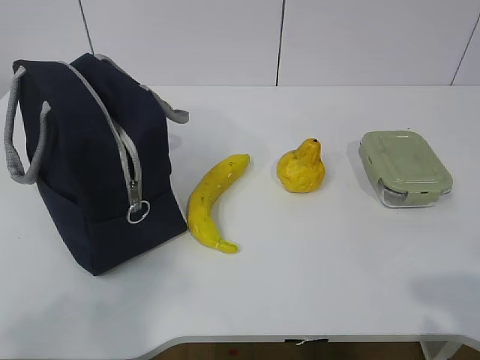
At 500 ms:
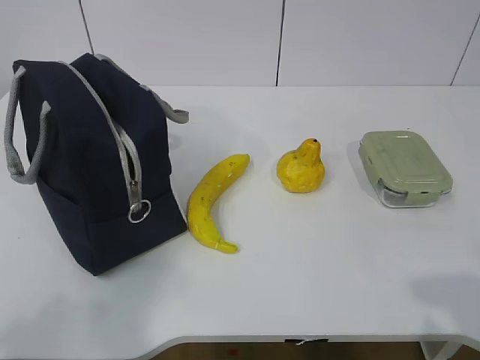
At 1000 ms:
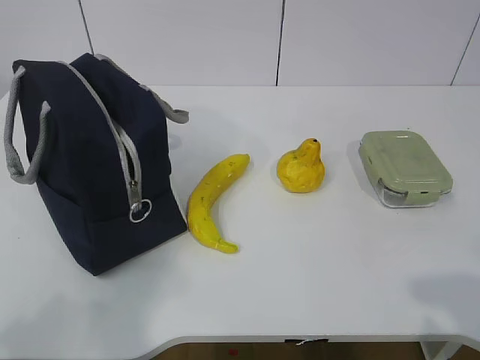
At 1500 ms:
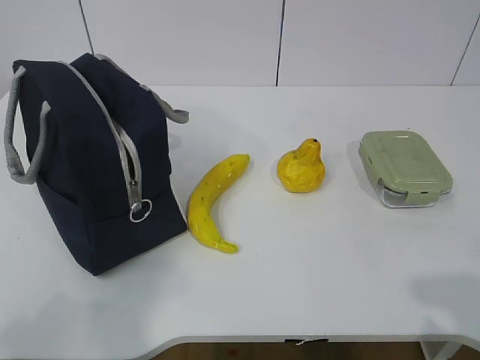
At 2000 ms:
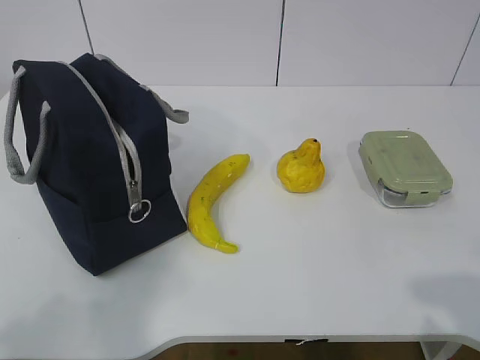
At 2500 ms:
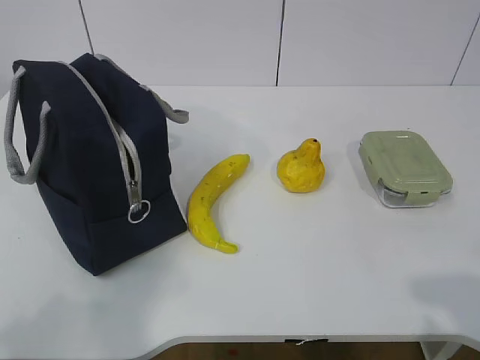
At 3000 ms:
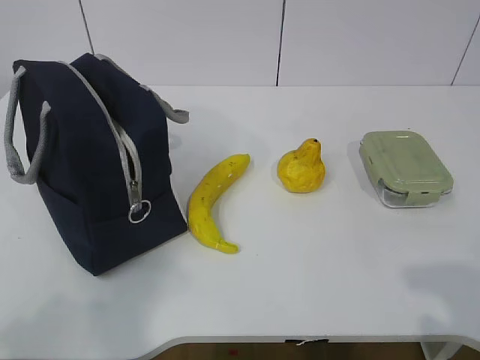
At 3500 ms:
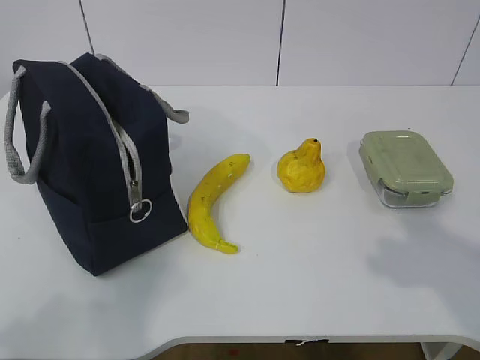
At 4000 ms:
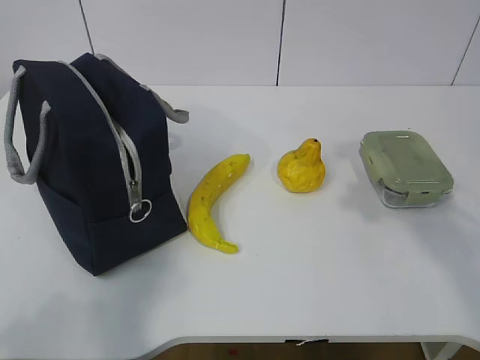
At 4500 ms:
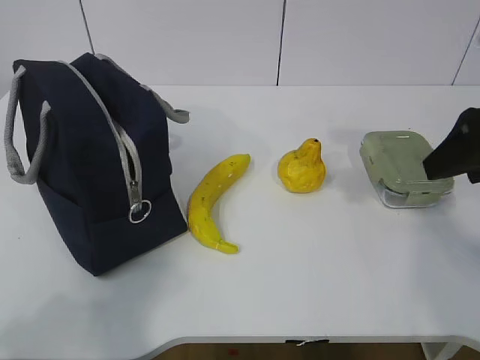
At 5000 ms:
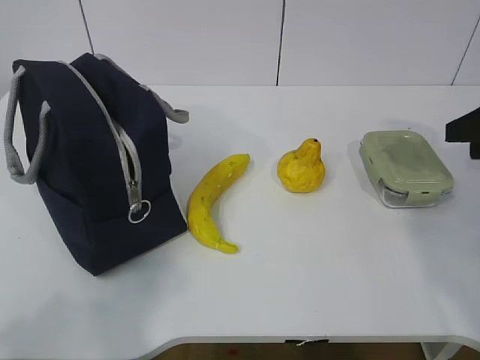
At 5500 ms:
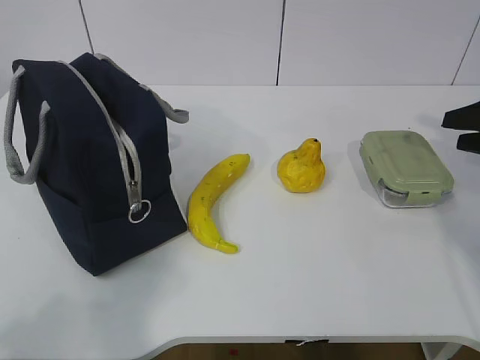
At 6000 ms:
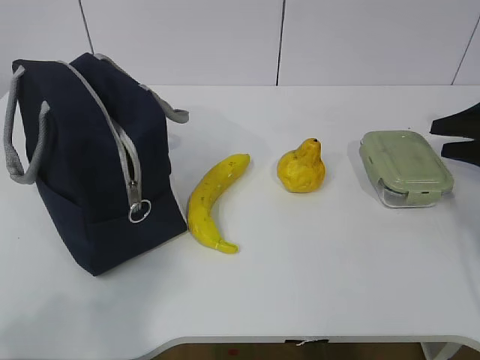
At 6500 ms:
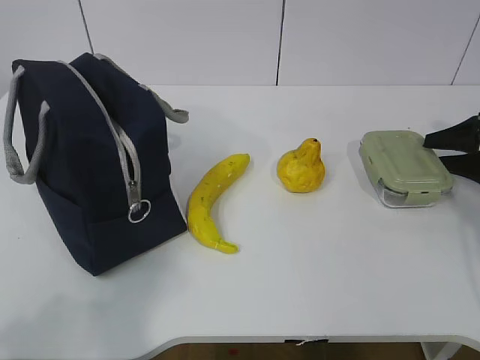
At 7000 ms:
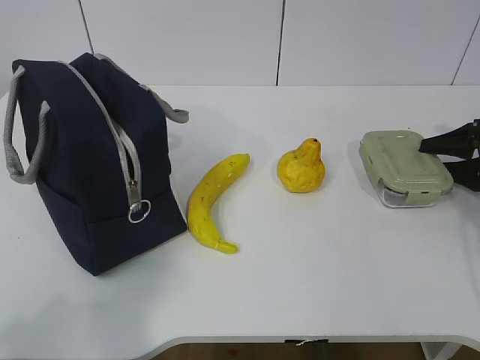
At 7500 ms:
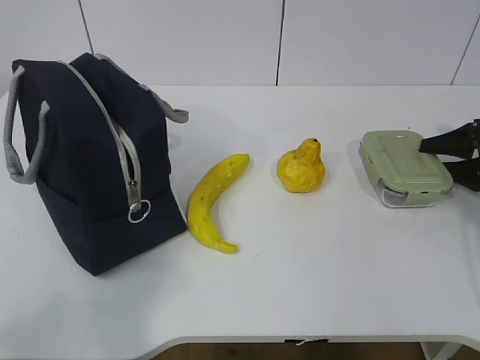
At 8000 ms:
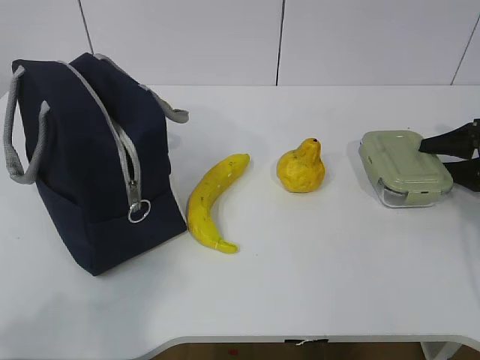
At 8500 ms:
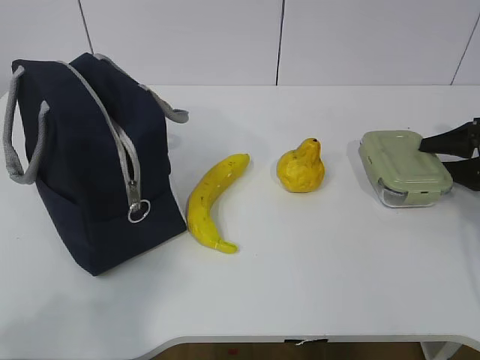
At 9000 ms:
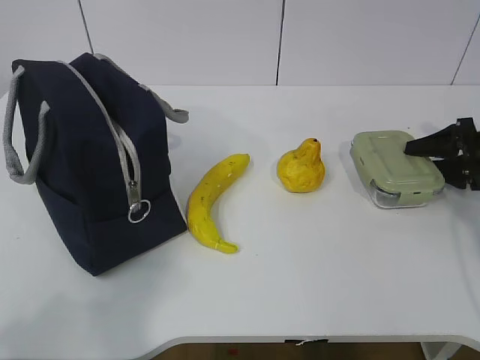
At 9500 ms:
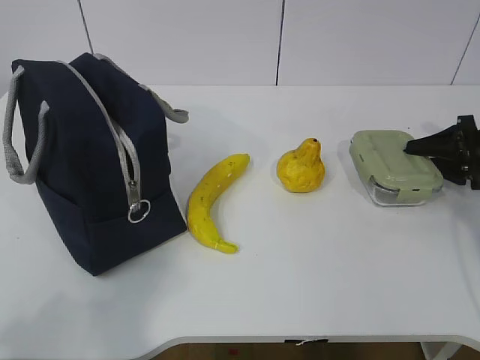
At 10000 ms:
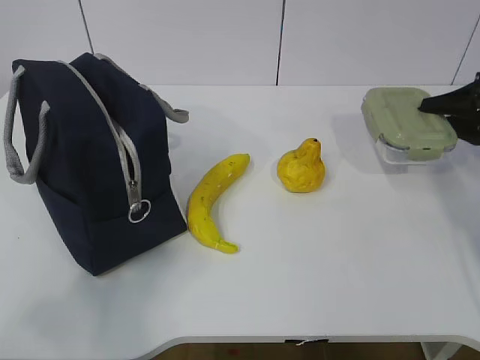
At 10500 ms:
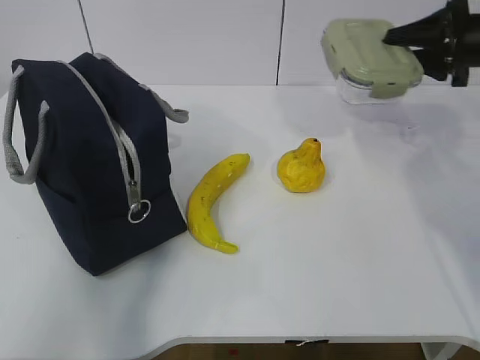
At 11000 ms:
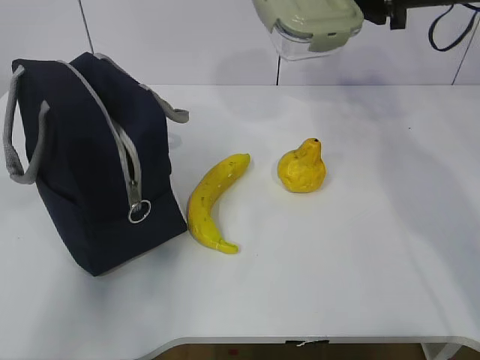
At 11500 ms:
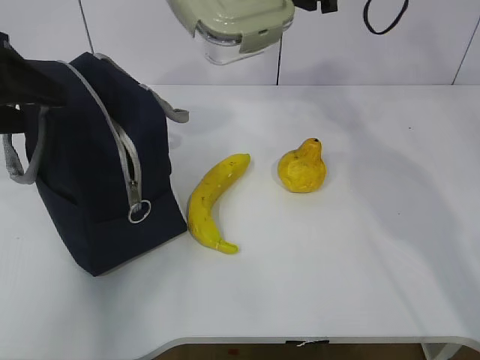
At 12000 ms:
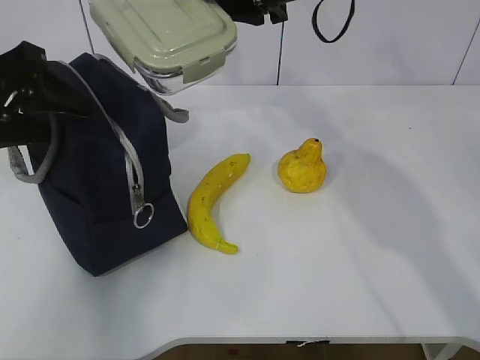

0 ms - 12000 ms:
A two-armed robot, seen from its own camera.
Step, 0 ms - 9500 ms: Grasp the box with the right gripper.
2000 ms - 4000 ms: The right gripper travels forward by about 20 cm.
4000 ms - 6000 ms: The right gripper heads forward, downward and to the right, covering roughly 30 cm.
6000 ms - 8000 ms: The right gripper changes place by approximately 5 cm.
8000 ms - 10000 ms: The right gripper is displaced upward by approximately 5 cm.
10000 ms - 12000 ms: The left gripper shifts some 30 cm forward, and opens up. The right gripper is displaced to the left and upward by approximately 35 cm.

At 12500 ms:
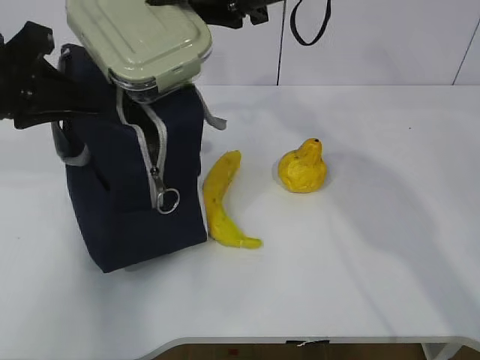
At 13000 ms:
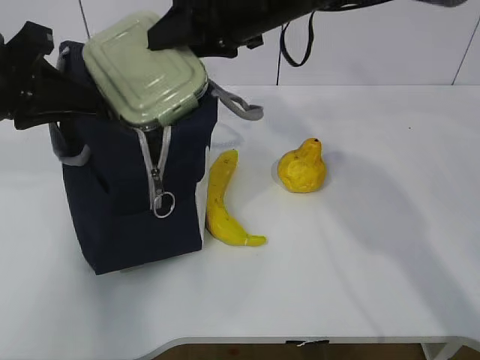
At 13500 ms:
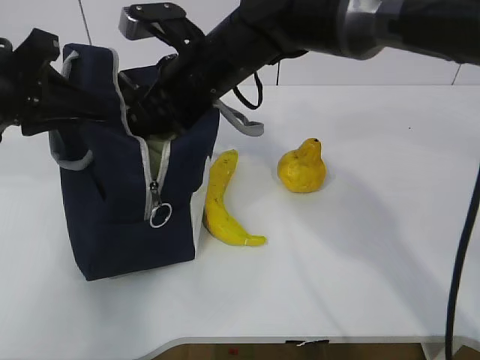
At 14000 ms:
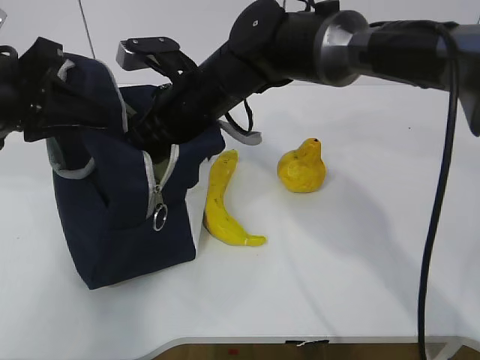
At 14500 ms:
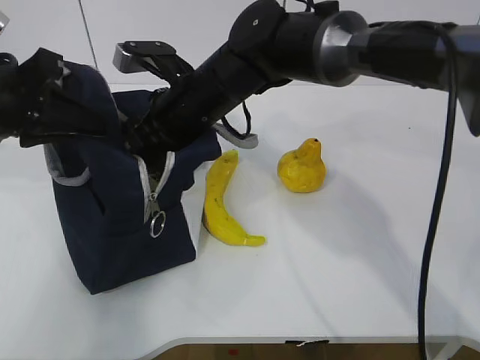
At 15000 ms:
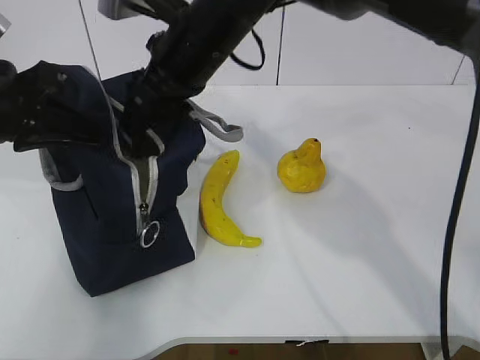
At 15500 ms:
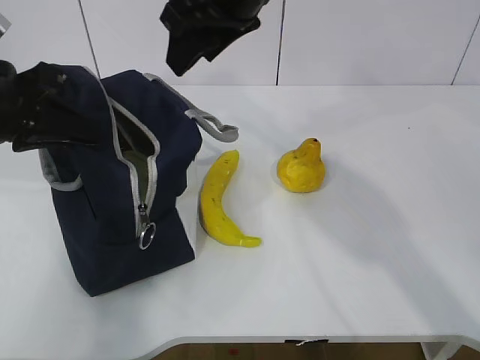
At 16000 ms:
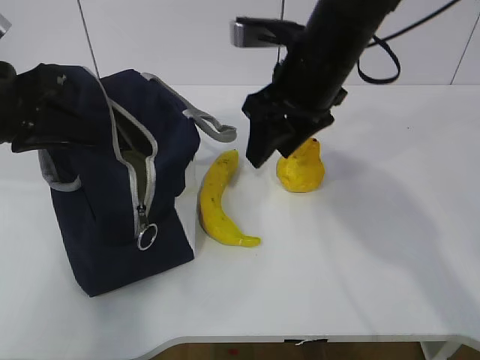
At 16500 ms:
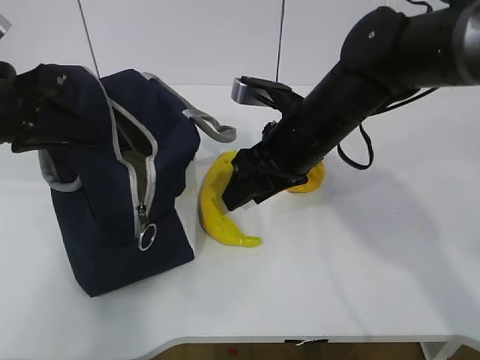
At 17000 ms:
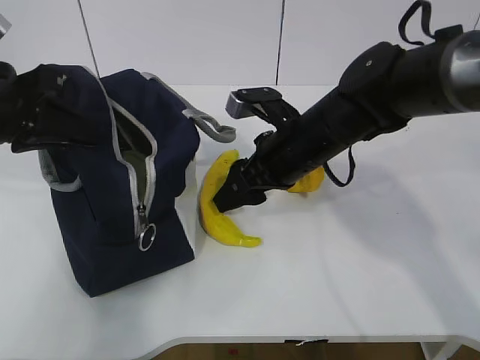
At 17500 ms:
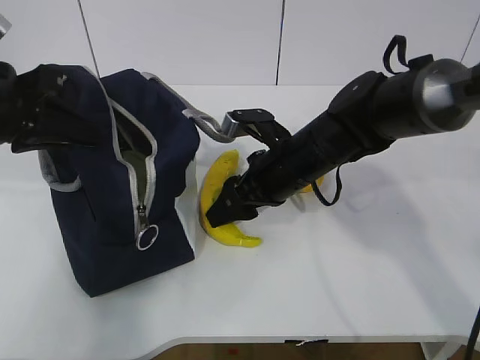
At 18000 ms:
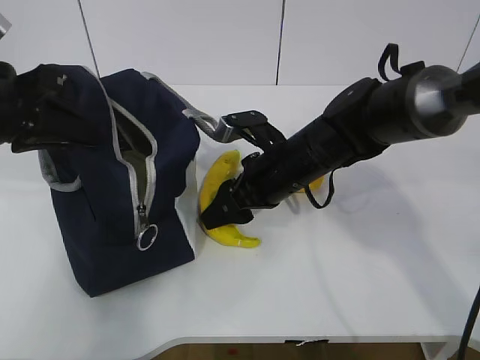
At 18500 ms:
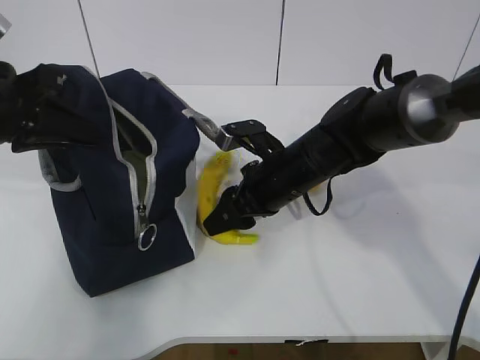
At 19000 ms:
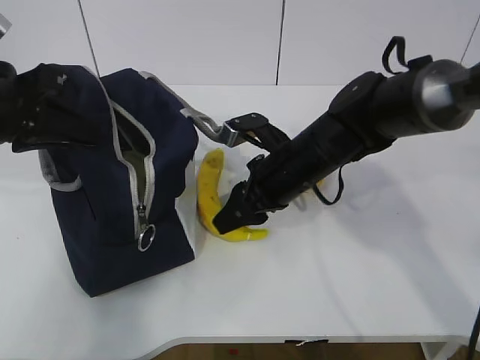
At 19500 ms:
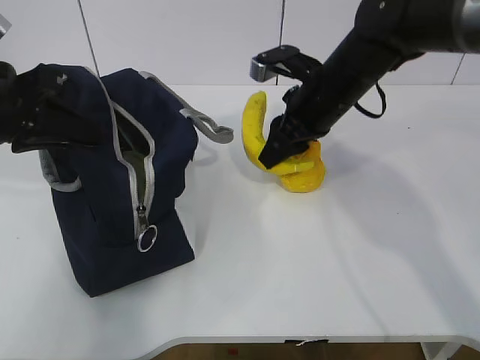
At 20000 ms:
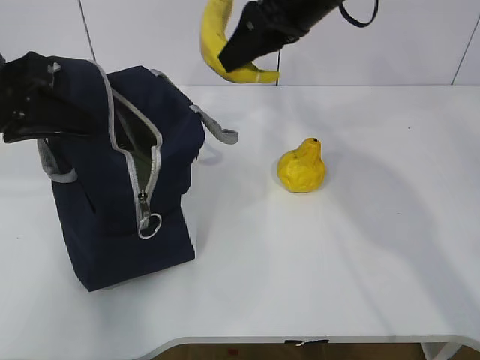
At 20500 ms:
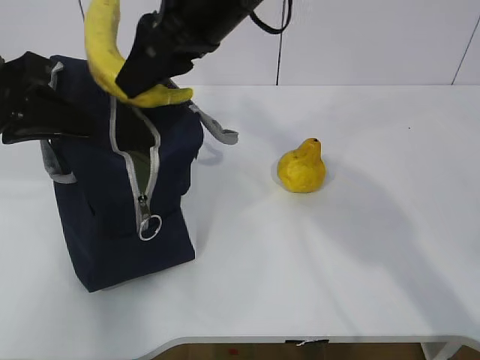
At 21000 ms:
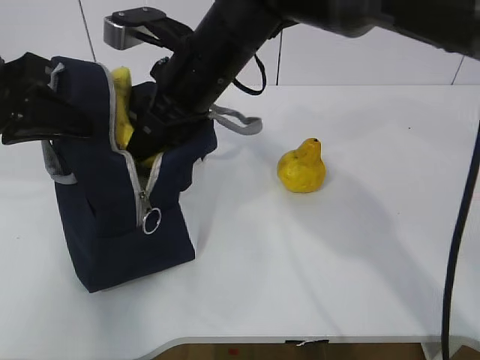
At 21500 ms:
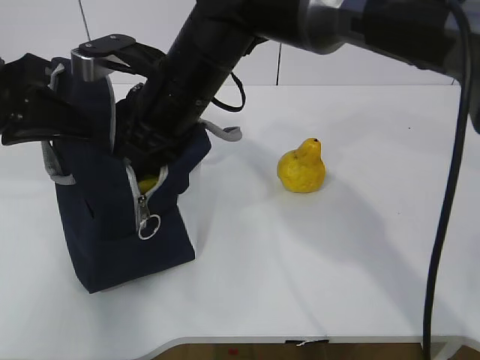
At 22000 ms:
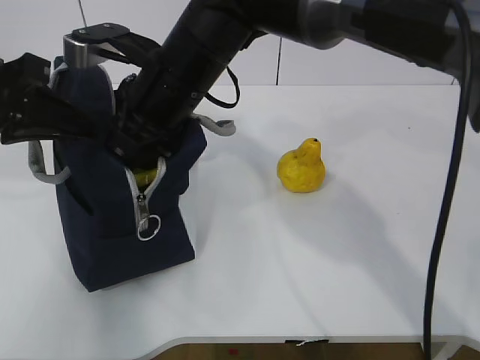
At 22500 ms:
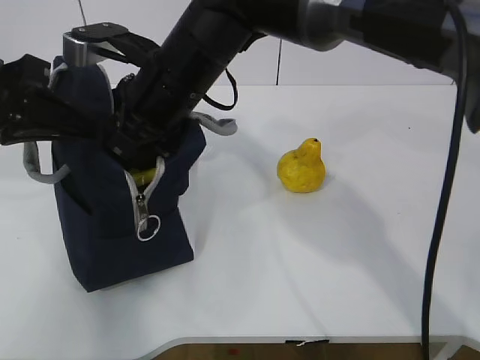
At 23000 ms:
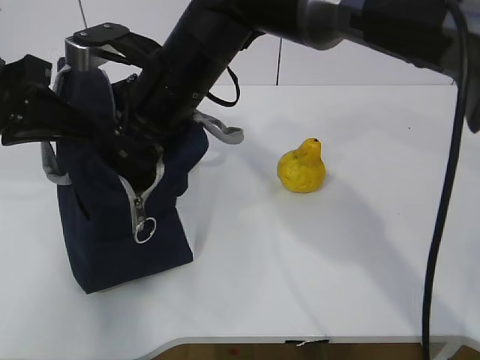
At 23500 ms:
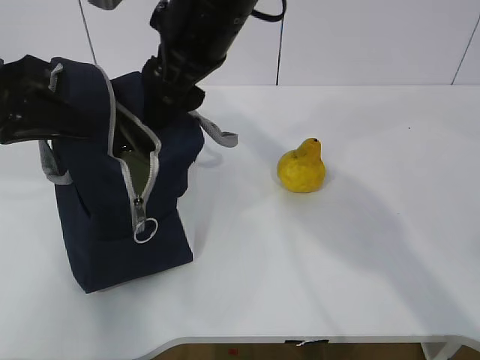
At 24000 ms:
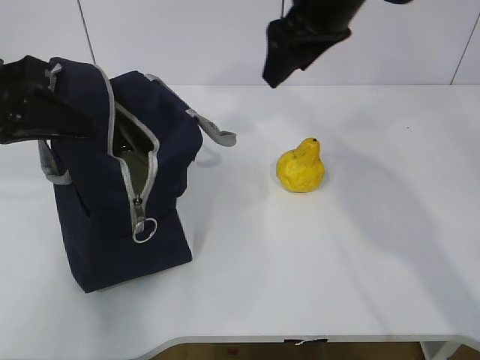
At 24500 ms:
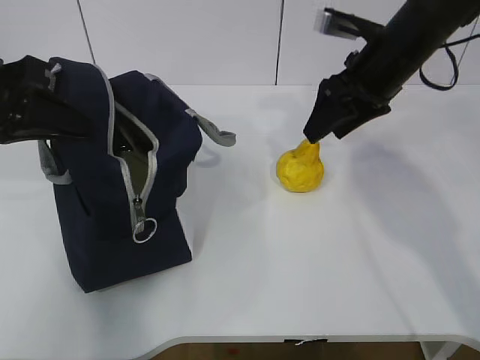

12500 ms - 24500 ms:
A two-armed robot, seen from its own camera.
Step, 12500 ms - 15000 ms: Place the box into the package with the right gripper.
Step, 15500 ms - 18500 ms: Grasp the banana with the right gripper.
Step, 19000 ms - 23500 ms: Place the banana into the package with the right gripper.
12500 ms - 14500 ms: The right gripper travels downward and to the left by approximately 15 cm.
14500 ms - 16500 ms: The right gripper goes approximately 10 cm to the right, and reaches about 15 cm upward, then returns.
16500 ms - 18500 ms: The right gripper travels downward by roughly 5 cm.
18500 ms - 20500 ms: The right gripper heads upward, covering approximately 20 cm.
20500 ms - 22500 ms: The right gripper moves downward and to the left, some 10 cm.
22500 ms - 24500 ms: The right gripper moves to the right, some 25 cm, and opens its fingers.

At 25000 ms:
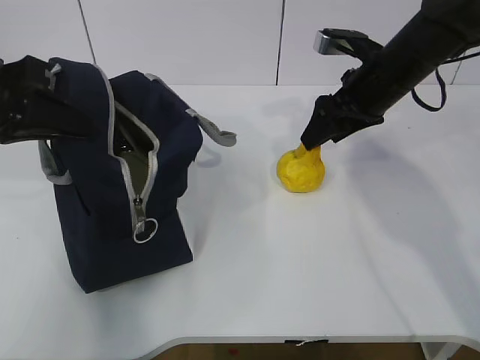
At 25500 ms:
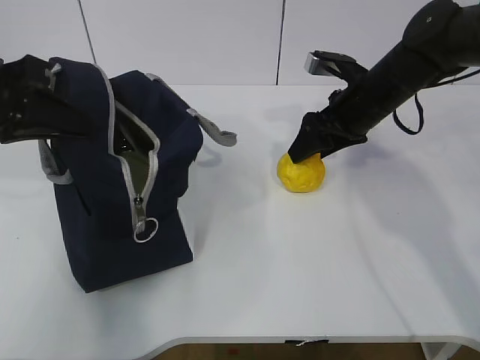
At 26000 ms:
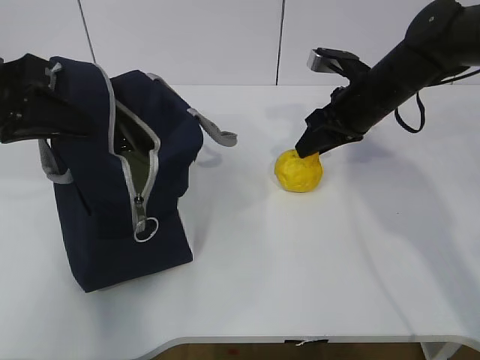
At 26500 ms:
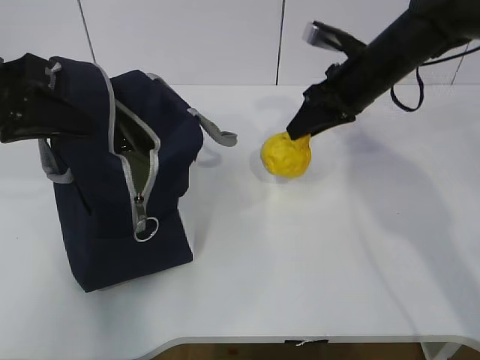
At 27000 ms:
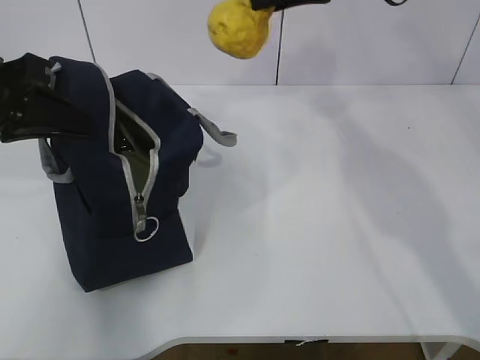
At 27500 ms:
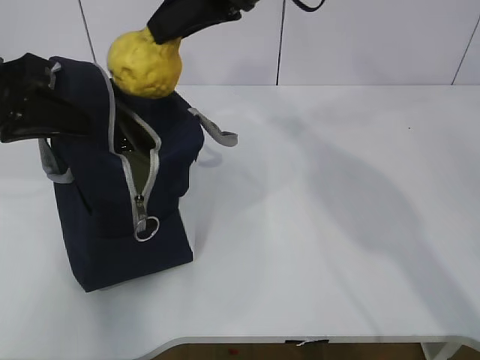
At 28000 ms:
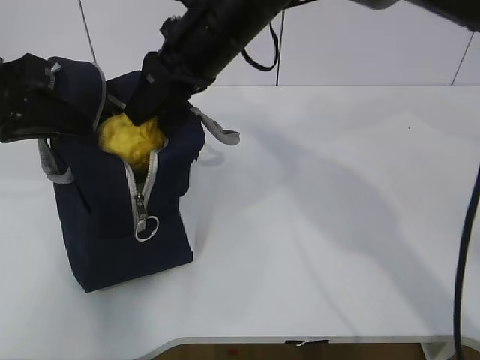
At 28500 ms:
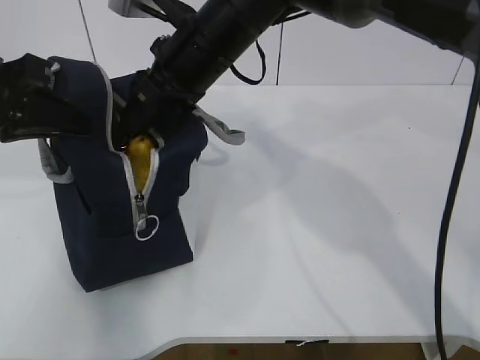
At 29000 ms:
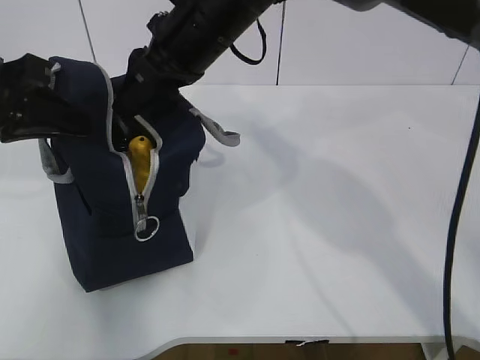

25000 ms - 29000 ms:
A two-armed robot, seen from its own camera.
25000 ms - 27000 ms: The right gripper heads upward, covering some 15 cm, and closes up.
27000 ms - 29000 ms: The right gripper goes roughly 15 cm to the left.
